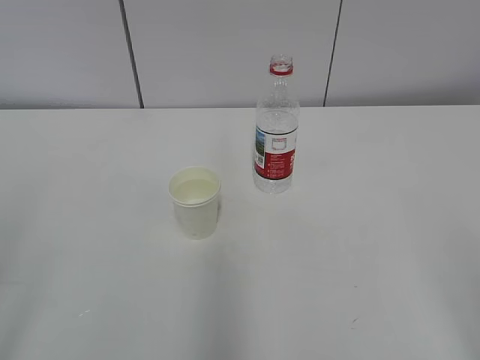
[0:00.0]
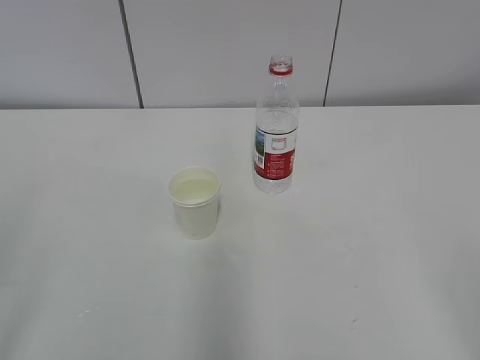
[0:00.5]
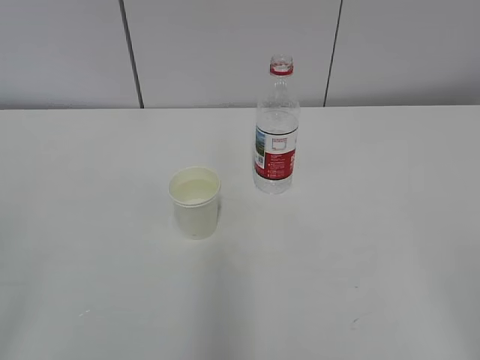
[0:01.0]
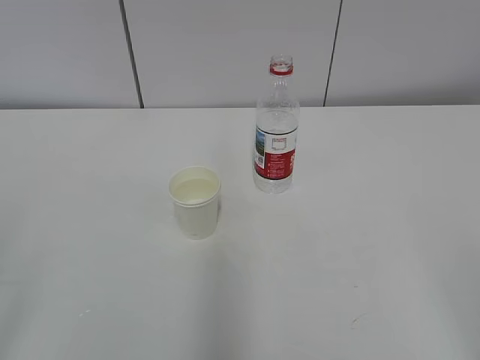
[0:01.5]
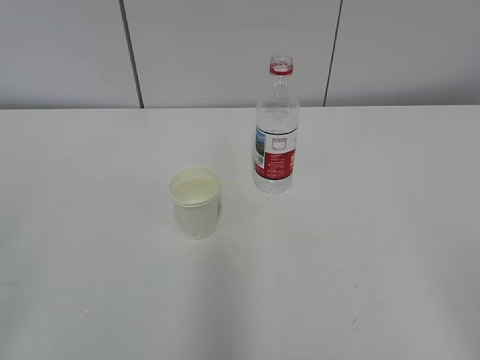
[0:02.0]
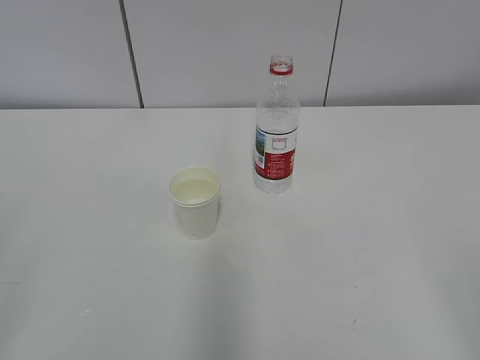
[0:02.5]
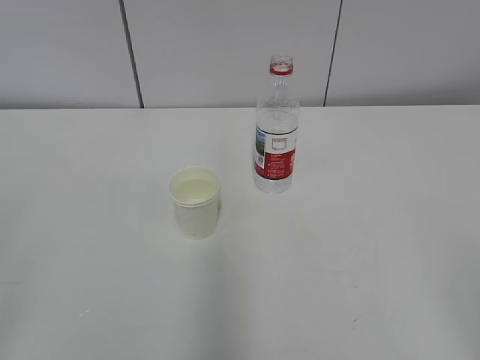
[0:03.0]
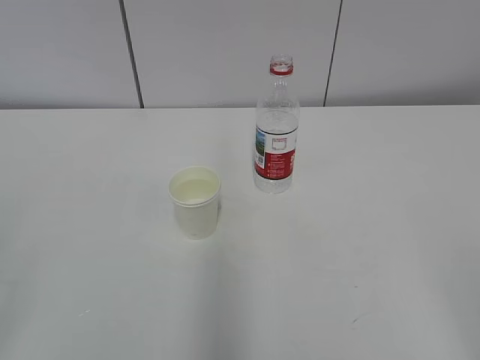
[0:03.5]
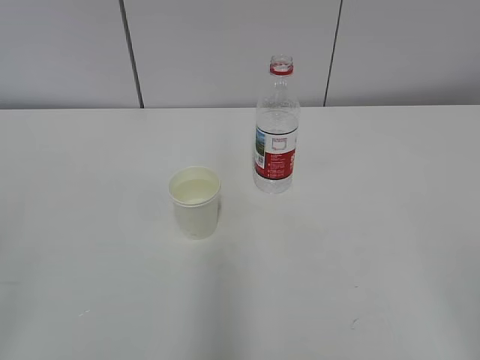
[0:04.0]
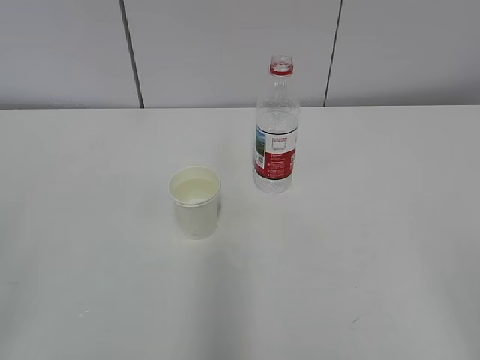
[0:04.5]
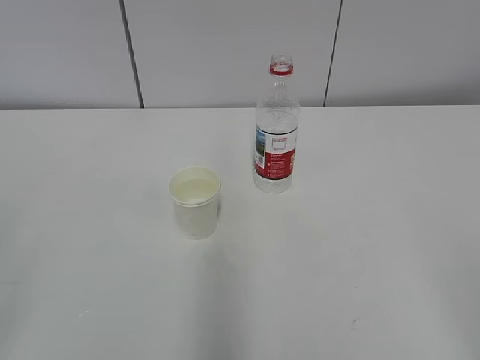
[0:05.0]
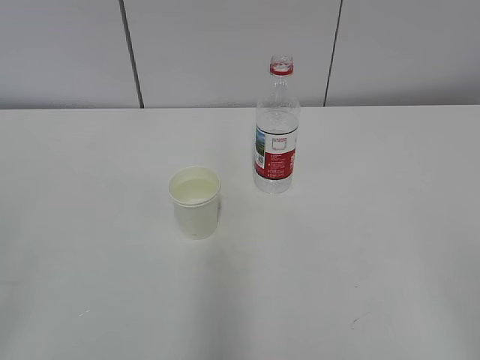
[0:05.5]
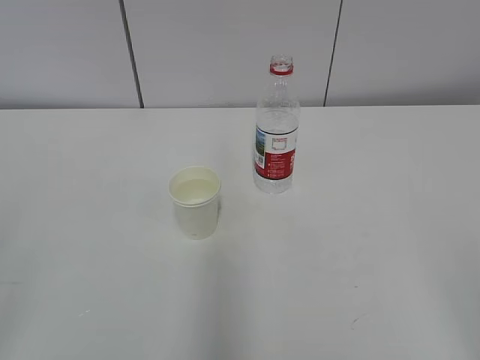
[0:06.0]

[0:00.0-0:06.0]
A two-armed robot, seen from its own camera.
0:02.0 to 0:06.0: Both grippers stay about where they are.

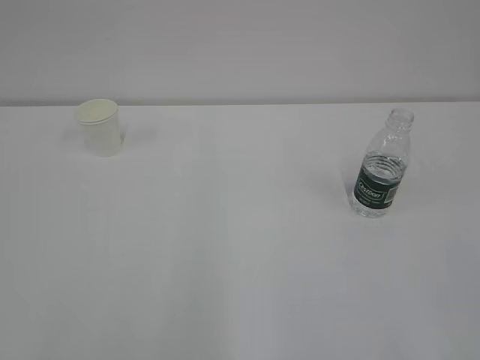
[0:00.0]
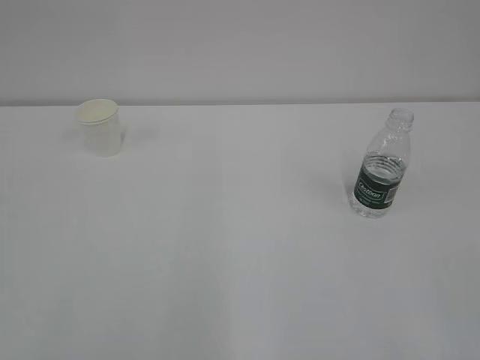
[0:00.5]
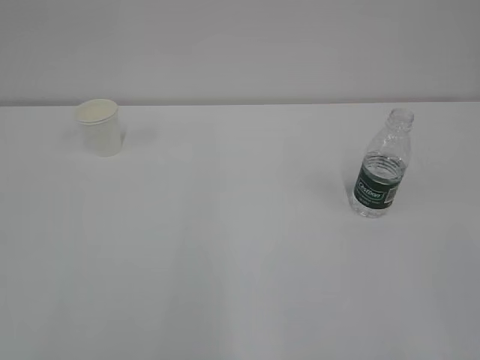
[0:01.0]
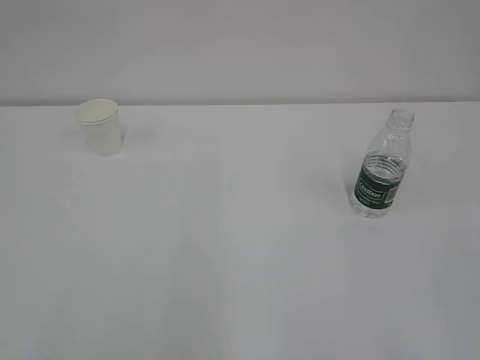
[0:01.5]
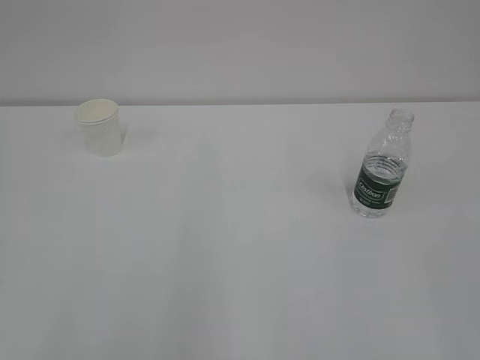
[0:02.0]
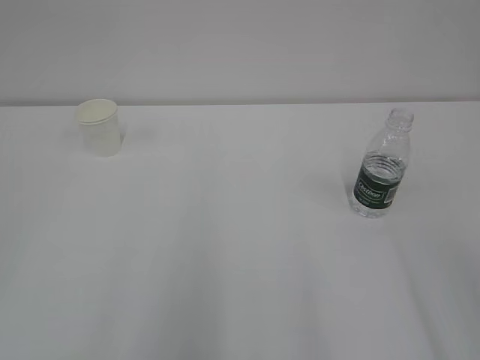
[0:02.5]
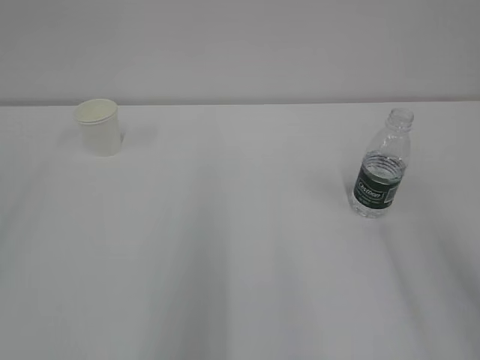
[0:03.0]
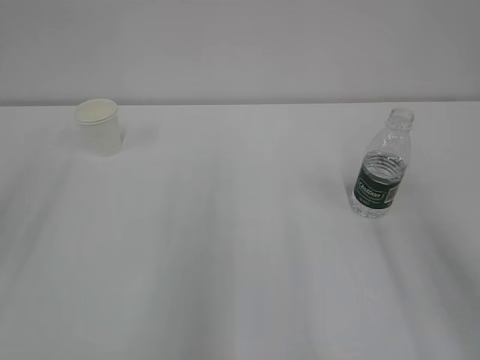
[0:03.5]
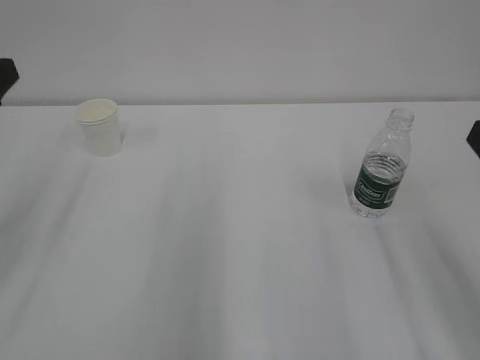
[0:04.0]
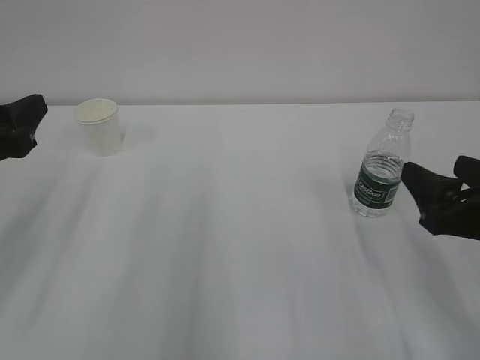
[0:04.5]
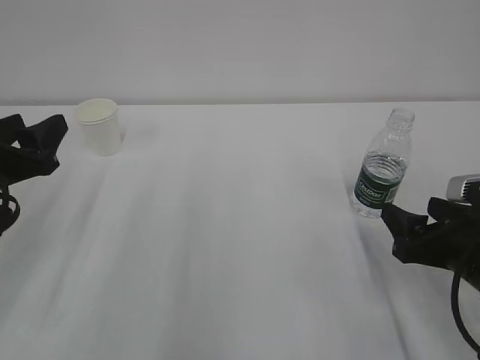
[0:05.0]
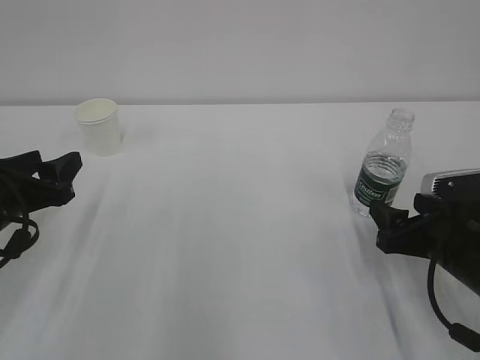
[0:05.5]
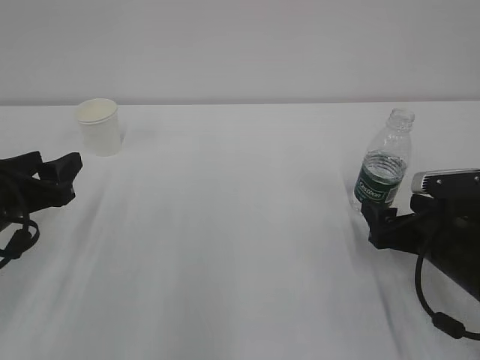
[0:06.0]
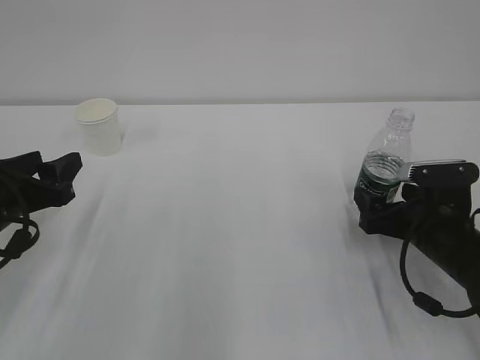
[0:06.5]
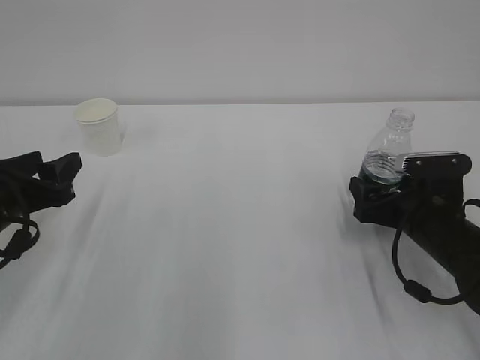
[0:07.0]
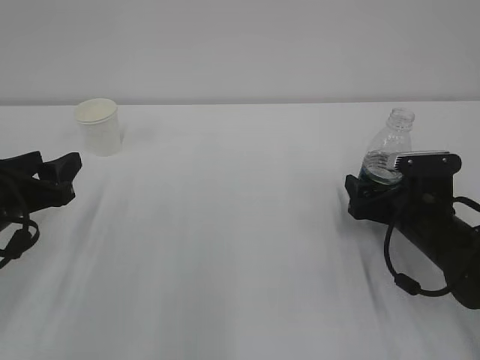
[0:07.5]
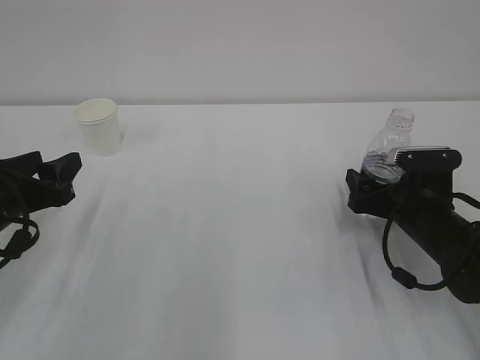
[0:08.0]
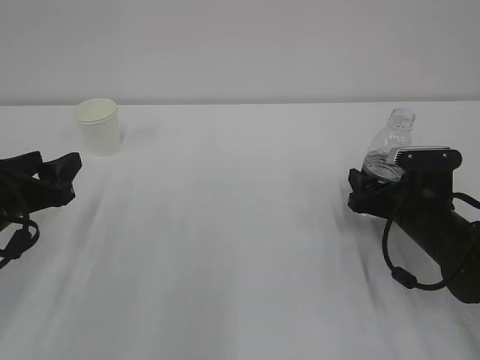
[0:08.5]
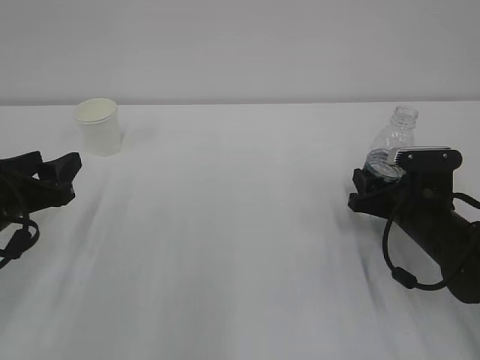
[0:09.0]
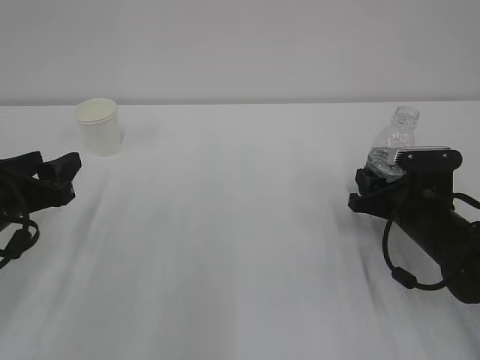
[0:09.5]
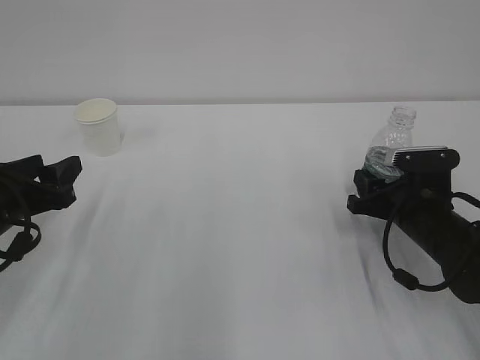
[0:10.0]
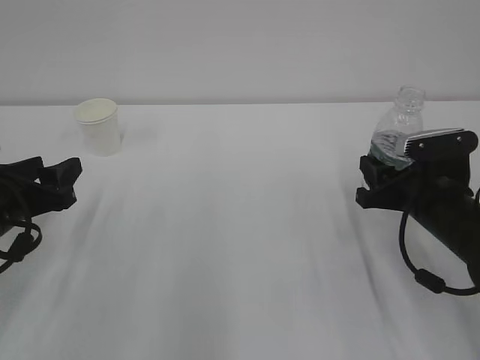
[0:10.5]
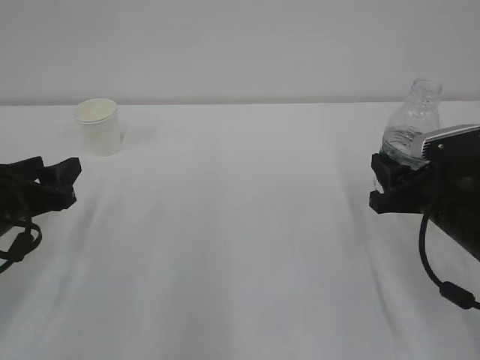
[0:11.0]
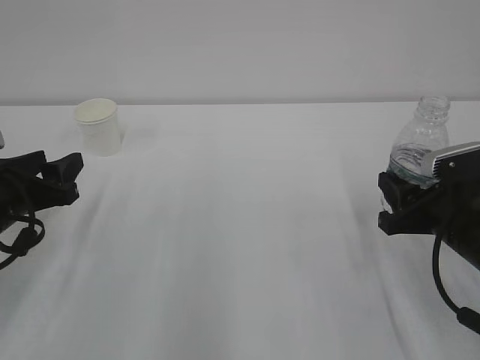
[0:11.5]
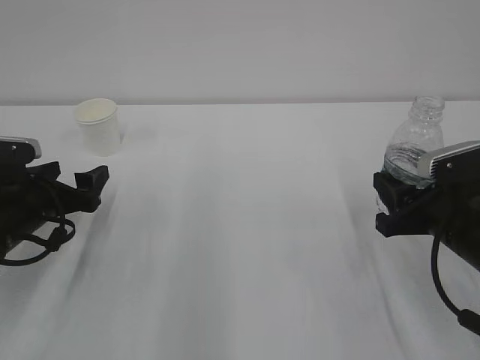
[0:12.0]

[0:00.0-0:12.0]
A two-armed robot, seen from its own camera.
0:02.0 to 0:04.0: The left gripper heads forward, covering roughly 25 cm.
0:04.0 to 0:06.0: The left gripper heads downward, covering roughly 15 cm, while the right gripper heads downward and forward, covering roughly 20 cm.
0:06.0 to 0:08.0: The right gripper moves forward, some 5 cm.
0:08.0 to 0:10.0: The right gripper closes.
0:10.0 to 0:12.0: The right gripper is displaced backward and upward by roughly 10 cm. The left gripper shifts by about 5 cm, and opens its fingers.

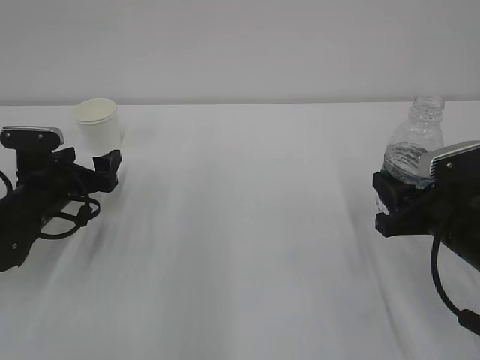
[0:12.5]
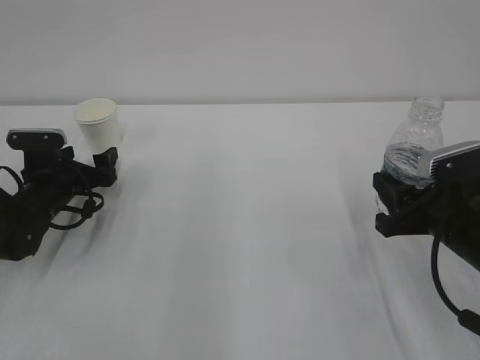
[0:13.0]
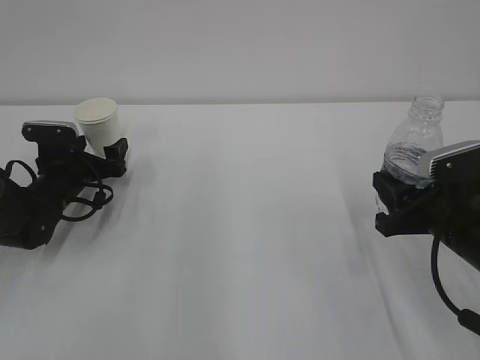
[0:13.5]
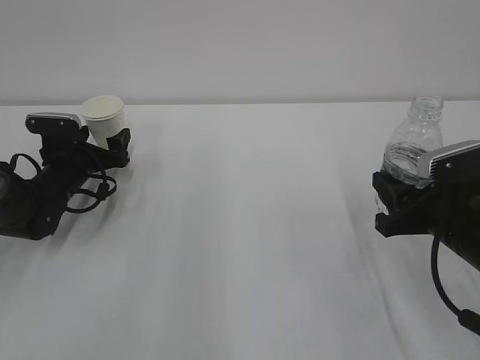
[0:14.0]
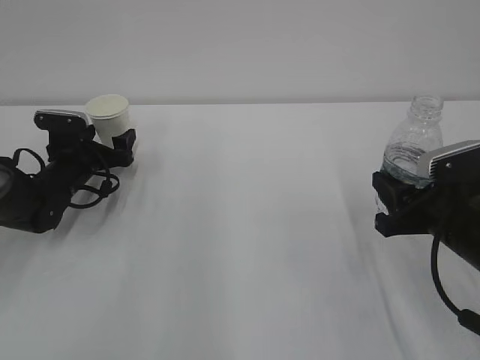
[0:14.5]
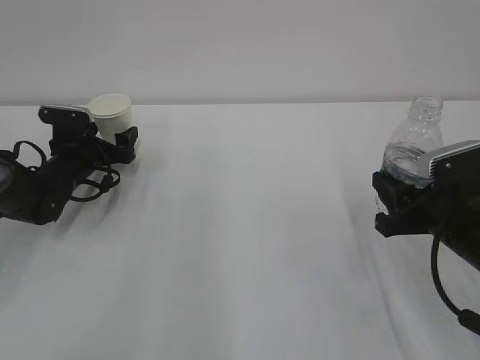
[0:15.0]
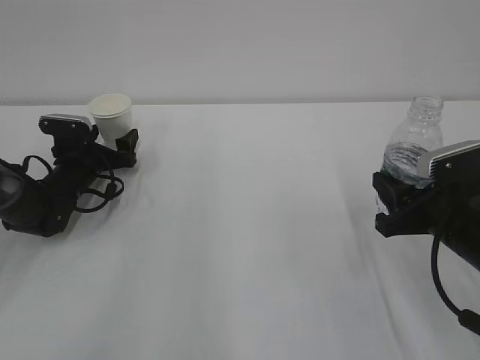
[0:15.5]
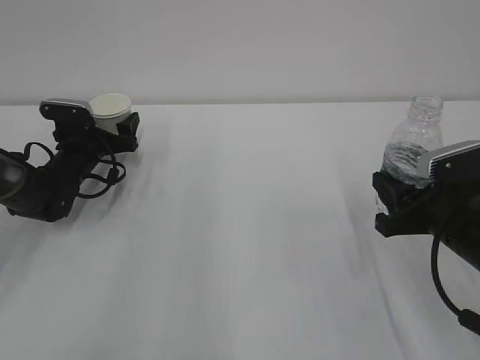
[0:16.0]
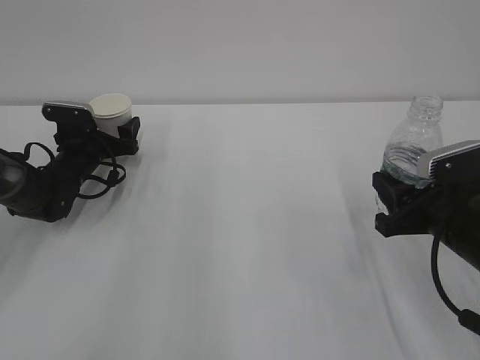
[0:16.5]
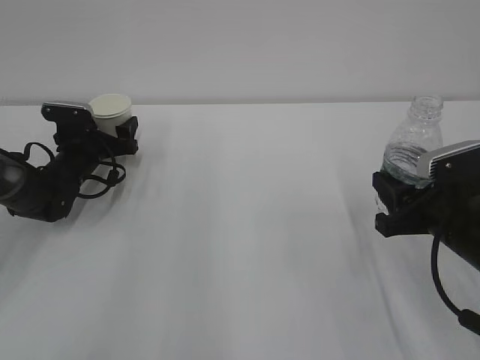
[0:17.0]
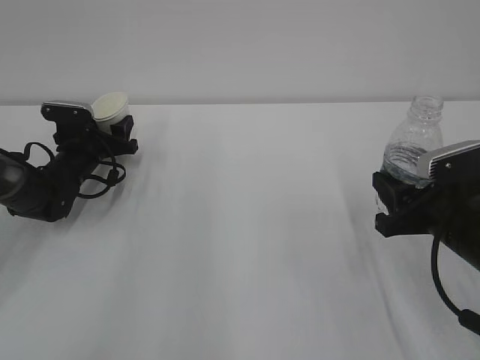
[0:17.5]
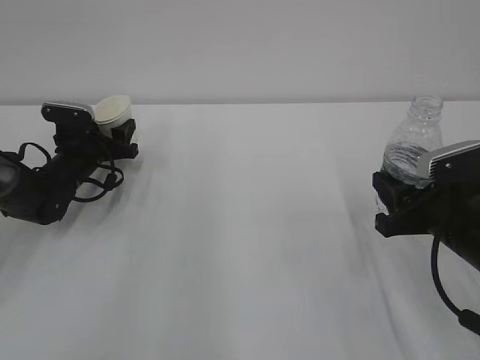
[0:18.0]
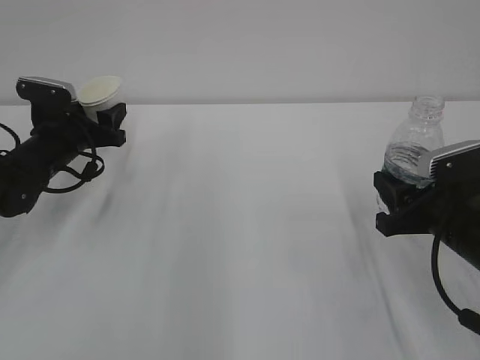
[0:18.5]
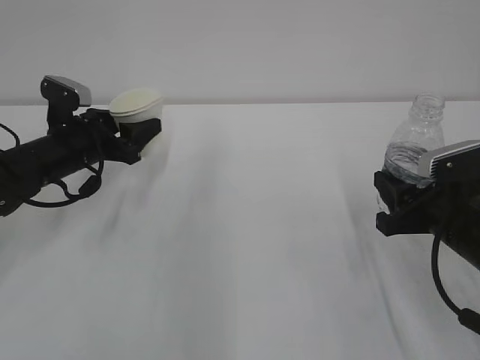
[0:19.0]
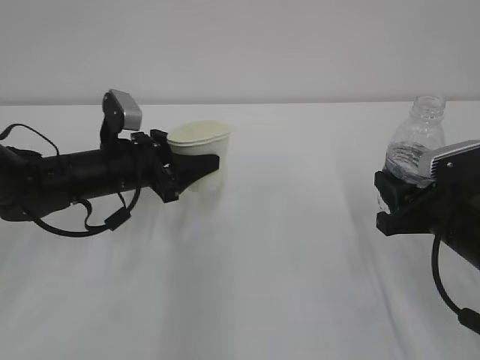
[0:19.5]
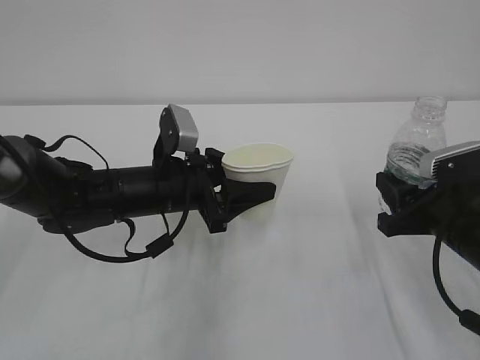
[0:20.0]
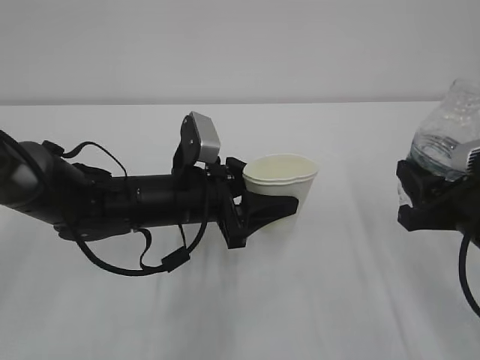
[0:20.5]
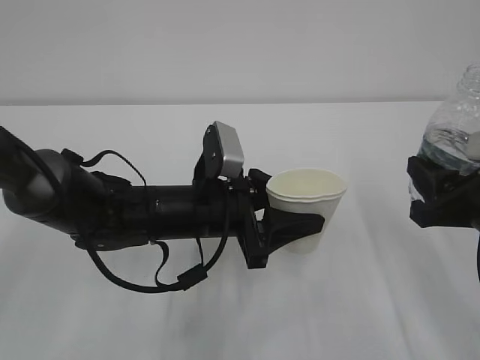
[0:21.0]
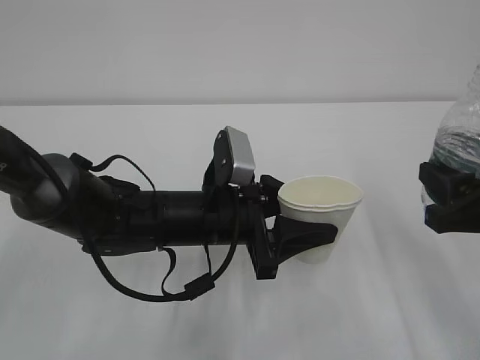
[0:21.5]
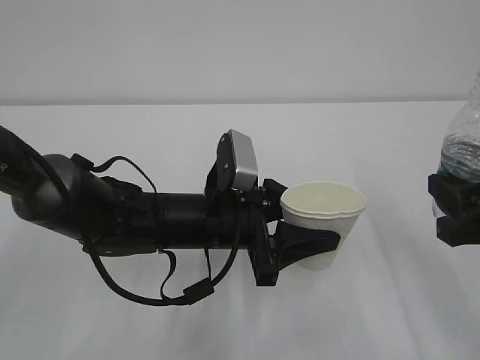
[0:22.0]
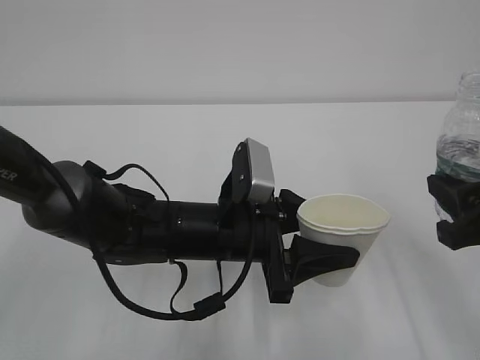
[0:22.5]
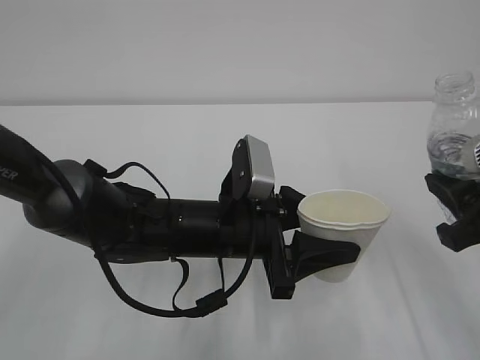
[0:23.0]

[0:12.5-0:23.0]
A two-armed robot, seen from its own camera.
0:12.5 to 0:14.5: The left gripper is displaced forward by about 10 cm.
0:14.5 to 0:16.5: The grippers move only a little.
0:16.5 to 0:19.0: The left gripper heads backward and upward, covering roughly 10 cm, and closes its fingers.
0:19.0 to 0:21.0: The left gripper moves to the right and backward, approximately 20 cm. The right gripper moves approximately 5 cm.
